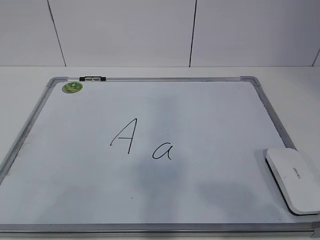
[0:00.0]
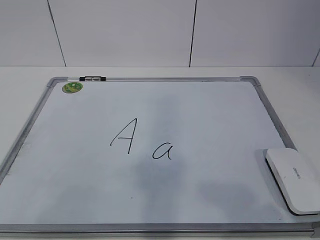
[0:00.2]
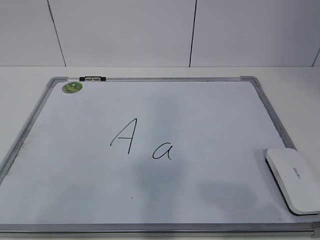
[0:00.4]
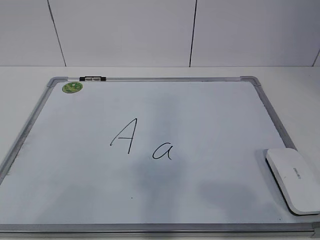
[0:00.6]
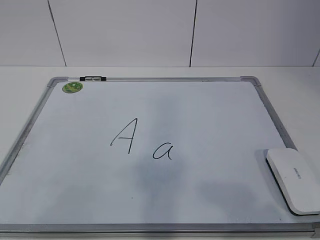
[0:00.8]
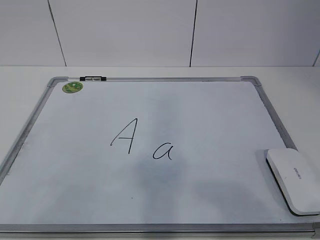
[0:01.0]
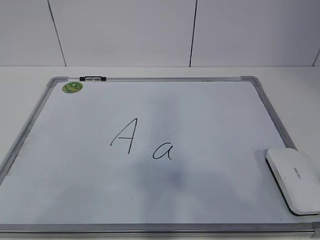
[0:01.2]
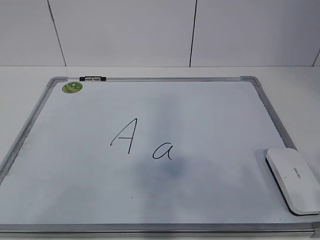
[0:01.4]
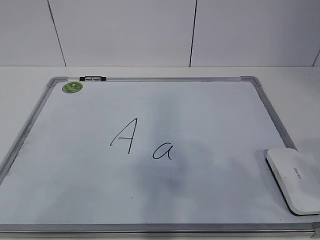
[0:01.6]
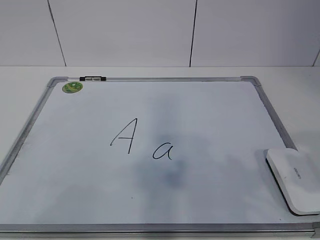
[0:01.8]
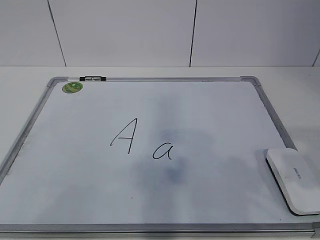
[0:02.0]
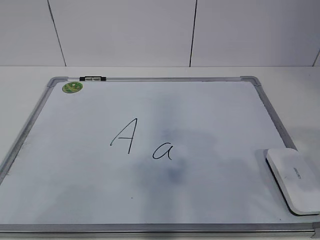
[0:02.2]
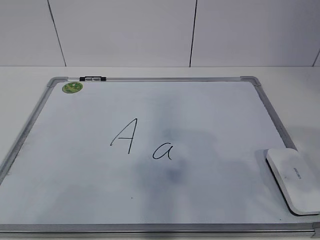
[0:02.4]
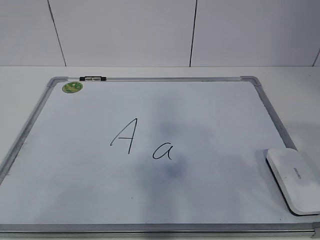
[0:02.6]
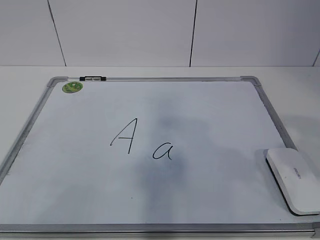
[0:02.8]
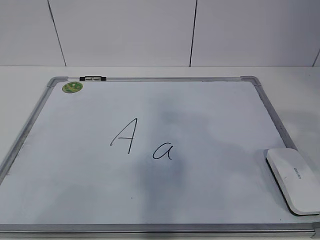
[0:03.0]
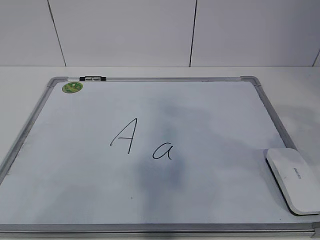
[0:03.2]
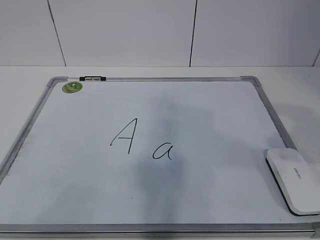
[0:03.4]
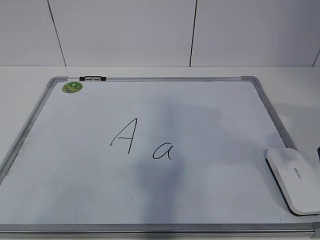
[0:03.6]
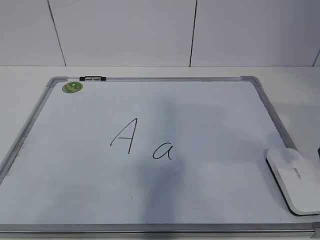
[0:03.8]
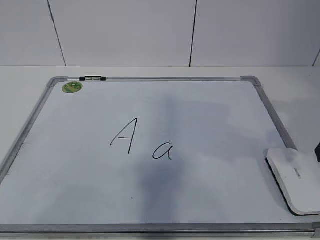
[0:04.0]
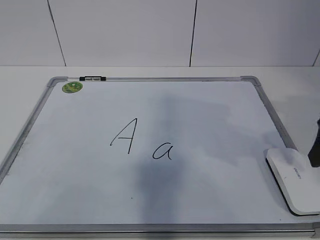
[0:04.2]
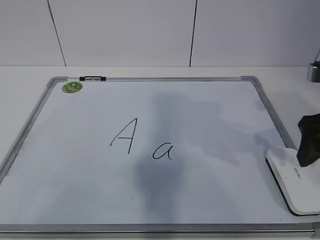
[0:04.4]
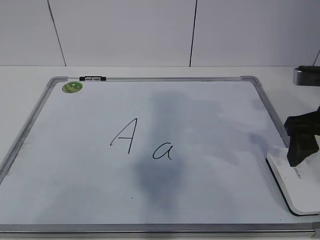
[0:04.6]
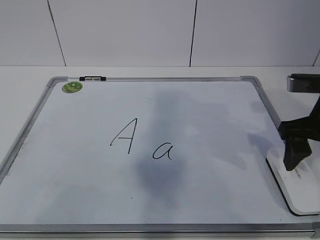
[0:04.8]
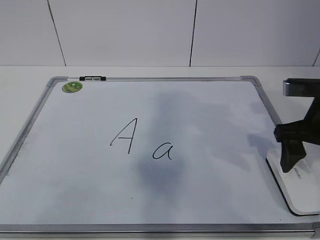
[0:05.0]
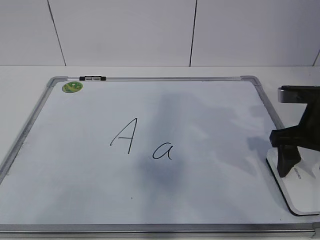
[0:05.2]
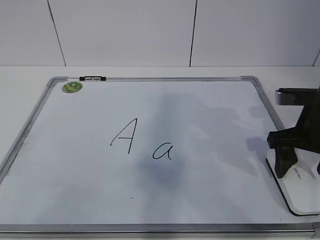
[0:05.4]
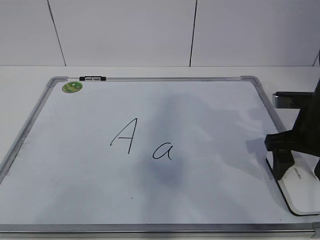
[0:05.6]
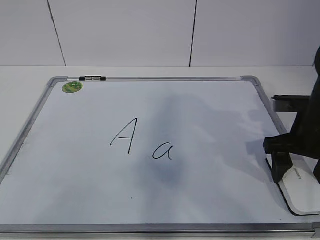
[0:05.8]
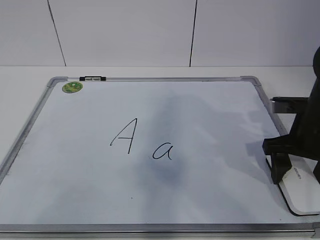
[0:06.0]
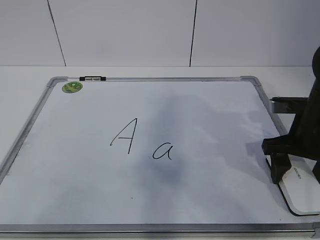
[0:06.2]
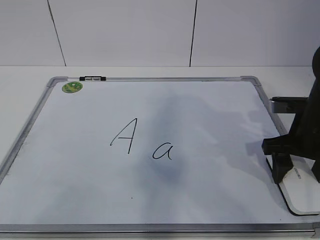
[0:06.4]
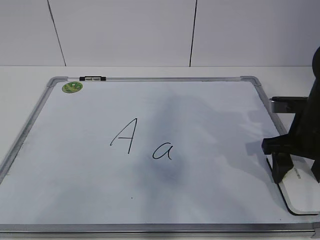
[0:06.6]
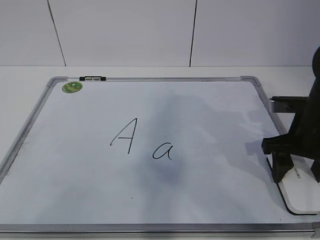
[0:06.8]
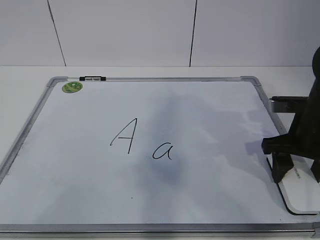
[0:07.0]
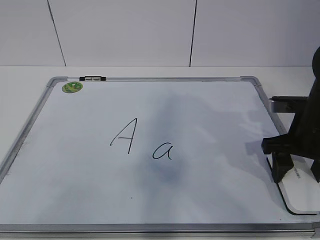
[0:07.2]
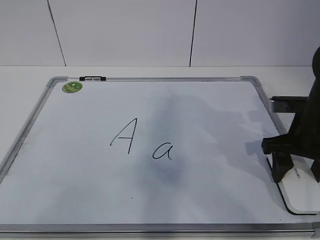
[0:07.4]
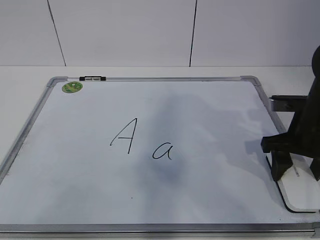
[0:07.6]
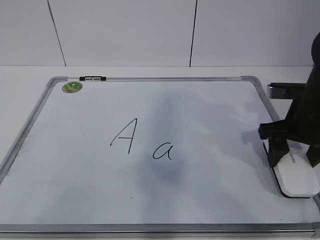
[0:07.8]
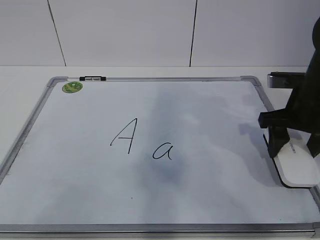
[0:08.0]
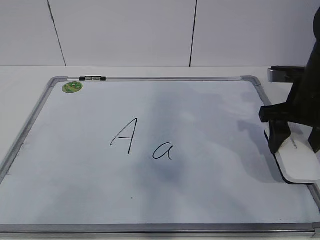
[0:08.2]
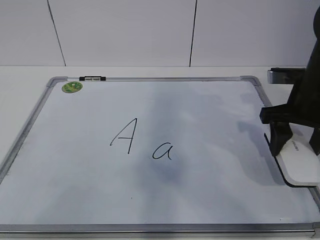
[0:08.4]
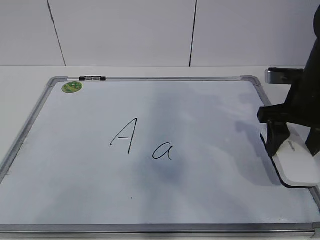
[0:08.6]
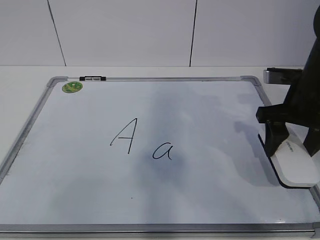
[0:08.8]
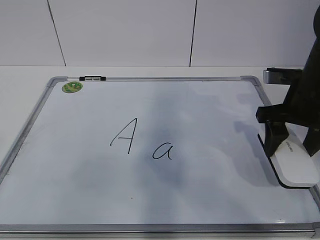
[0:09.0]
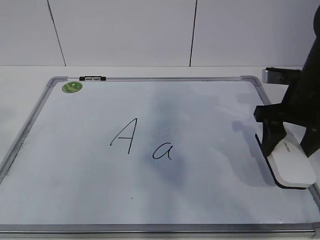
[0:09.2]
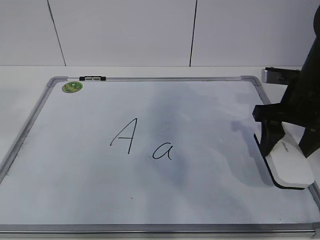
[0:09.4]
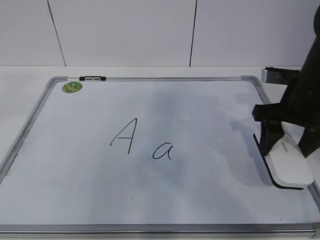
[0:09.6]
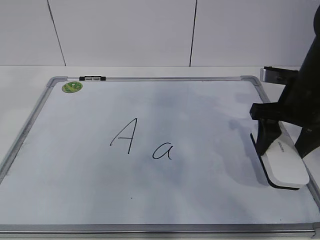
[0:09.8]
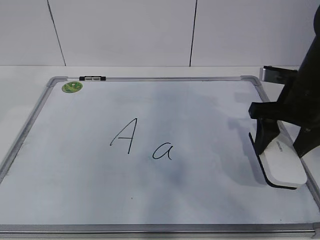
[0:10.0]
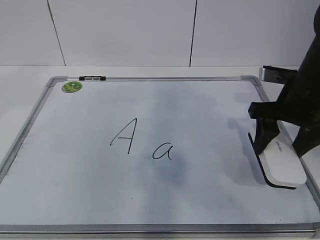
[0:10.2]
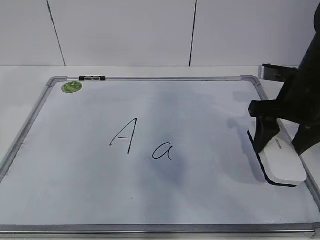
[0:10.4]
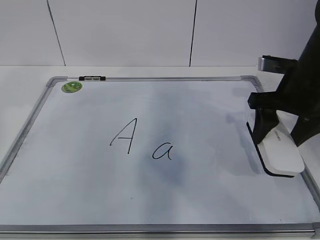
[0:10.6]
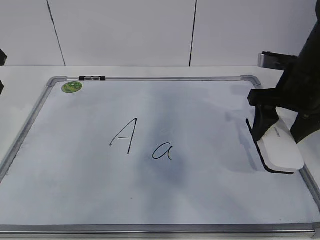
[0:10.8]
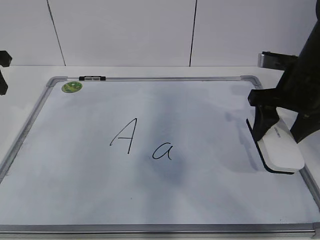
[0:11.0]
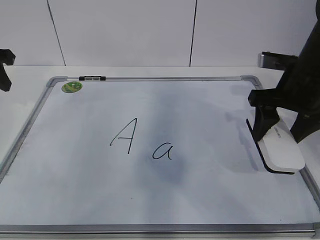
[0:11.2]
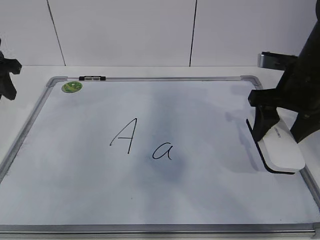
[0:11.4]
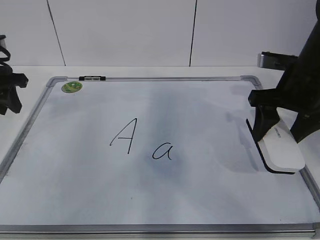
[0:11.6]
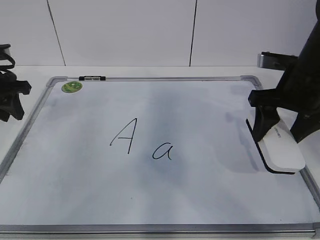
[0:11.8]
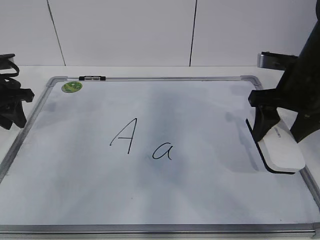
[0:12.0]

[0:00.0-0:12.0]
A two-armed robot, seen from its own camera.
Task of the whole recording: pick up the eraser on the blackboard and erase the letter "a".
Step, 0:00.0 to 0:05.2: Grab the eraser with your right hand.
Step, 0:05.4 to 0:10.8: Hold the drawing board steady with your left hand.
0:03.0 to 0:04.4: The right gripper moves forward, approximately 10 cm, and opens.
0:04.4 to 0:06.0: The right gripper heads downward and forward, covering roughly 10 cm.
0:06.0 to 0:07.6: The right gripper closes its fingers.
0:07.6 to 0:09.0: The right gripper ends up about 5 cm from where it was.
0:10.4 to 0:12.0: The left gripper is displaced downward and forward by roughly 15 cm.

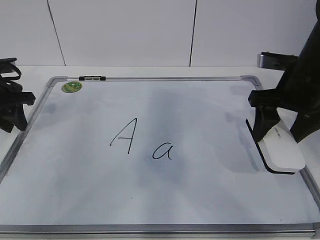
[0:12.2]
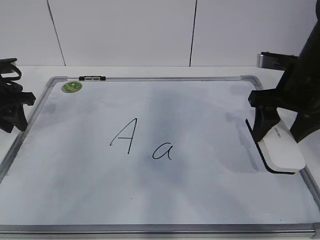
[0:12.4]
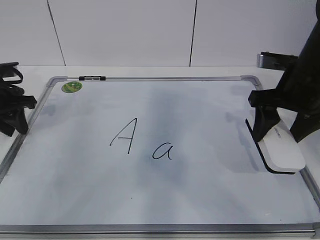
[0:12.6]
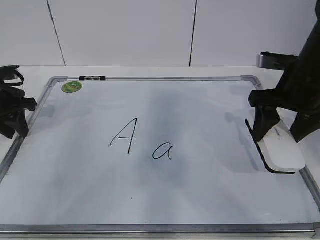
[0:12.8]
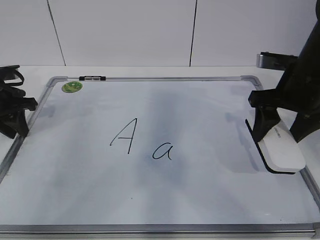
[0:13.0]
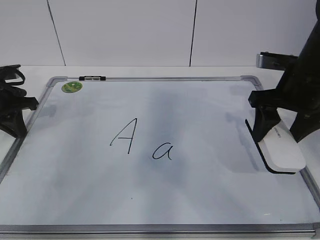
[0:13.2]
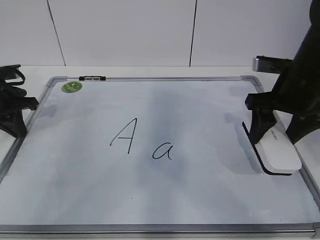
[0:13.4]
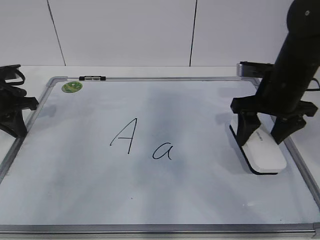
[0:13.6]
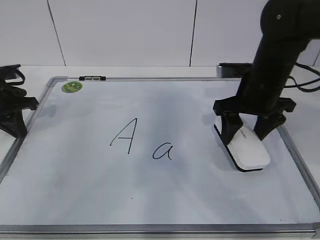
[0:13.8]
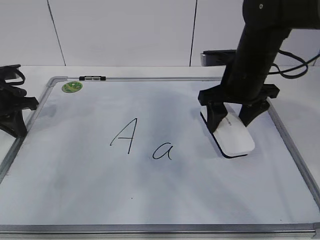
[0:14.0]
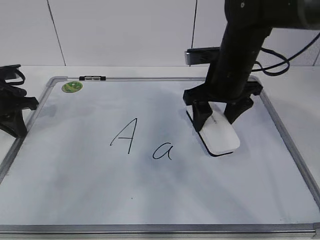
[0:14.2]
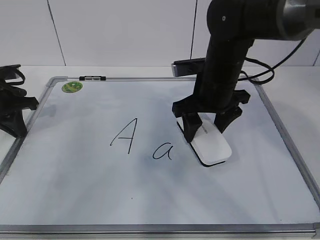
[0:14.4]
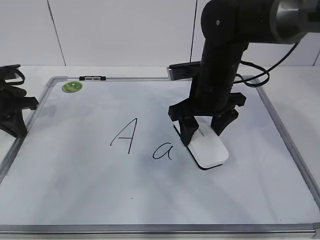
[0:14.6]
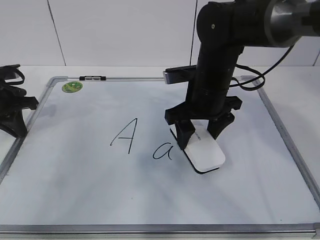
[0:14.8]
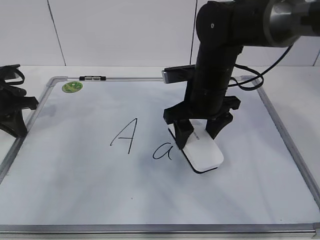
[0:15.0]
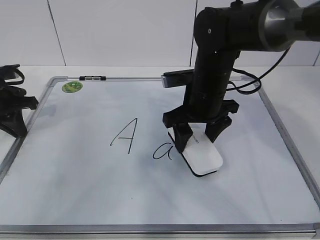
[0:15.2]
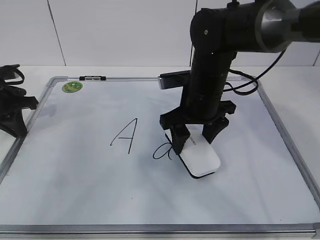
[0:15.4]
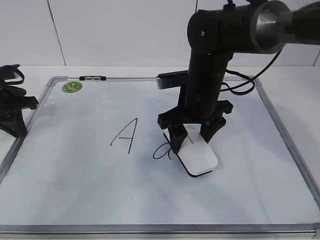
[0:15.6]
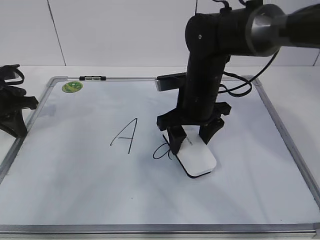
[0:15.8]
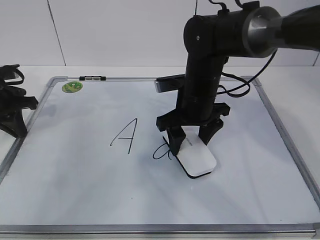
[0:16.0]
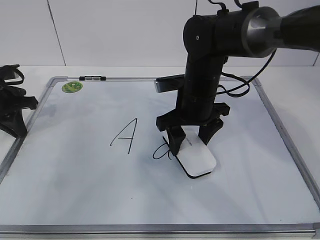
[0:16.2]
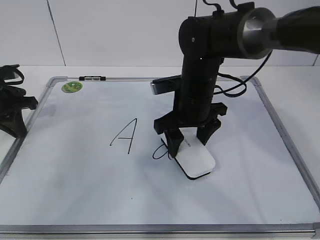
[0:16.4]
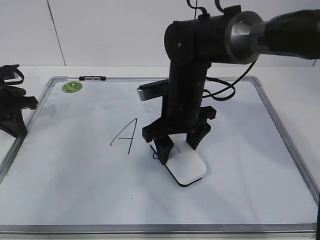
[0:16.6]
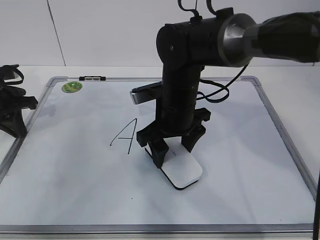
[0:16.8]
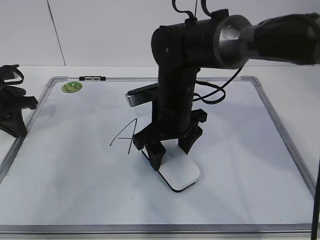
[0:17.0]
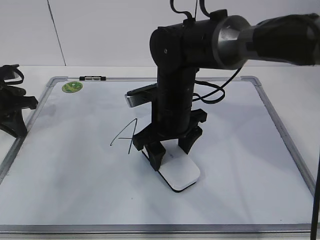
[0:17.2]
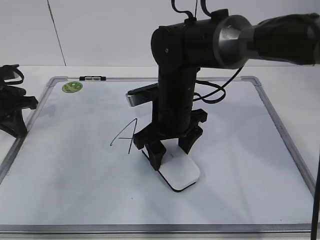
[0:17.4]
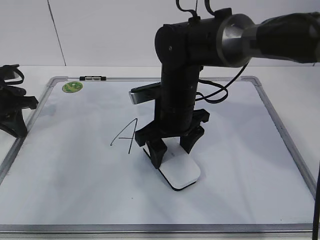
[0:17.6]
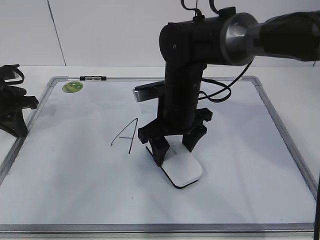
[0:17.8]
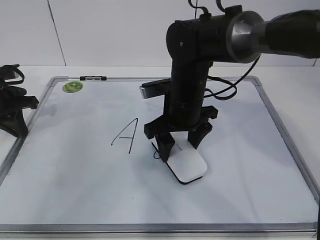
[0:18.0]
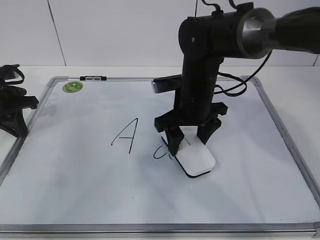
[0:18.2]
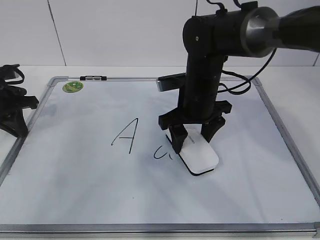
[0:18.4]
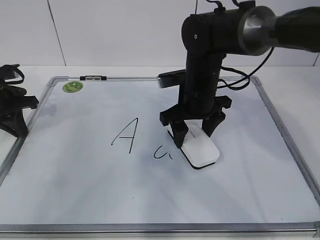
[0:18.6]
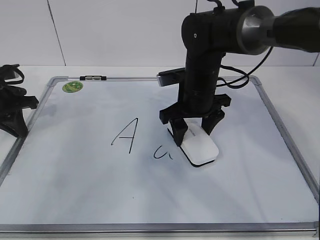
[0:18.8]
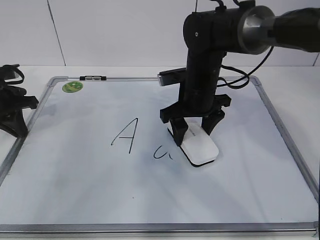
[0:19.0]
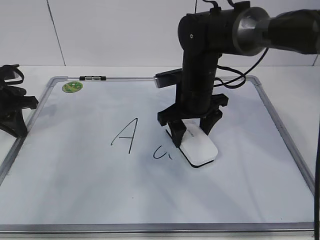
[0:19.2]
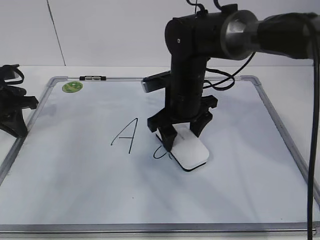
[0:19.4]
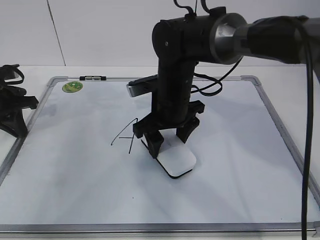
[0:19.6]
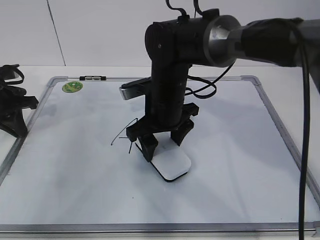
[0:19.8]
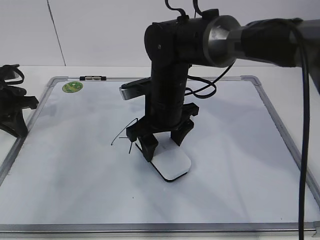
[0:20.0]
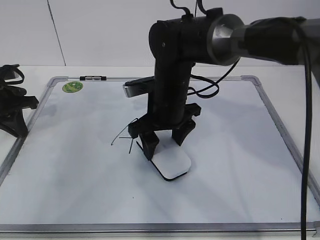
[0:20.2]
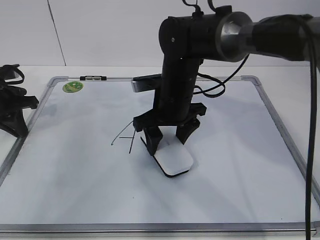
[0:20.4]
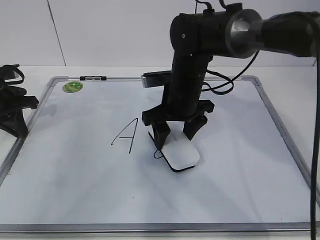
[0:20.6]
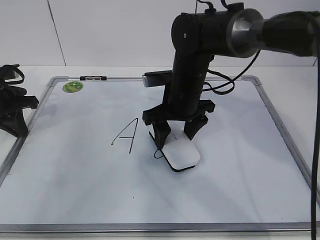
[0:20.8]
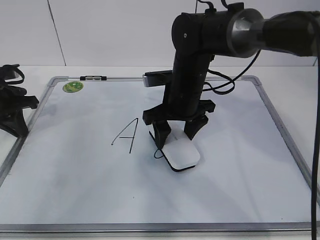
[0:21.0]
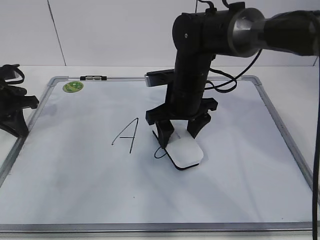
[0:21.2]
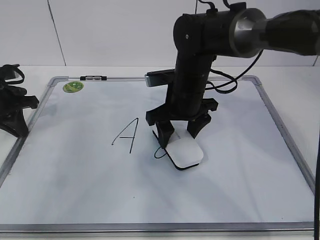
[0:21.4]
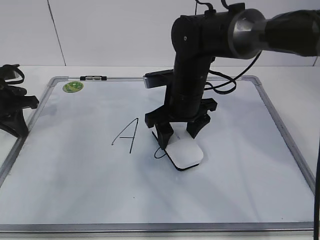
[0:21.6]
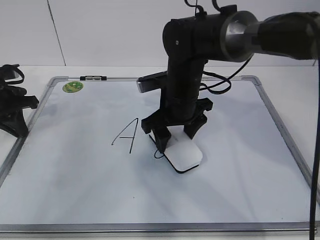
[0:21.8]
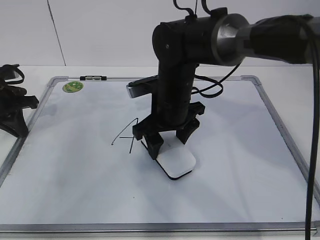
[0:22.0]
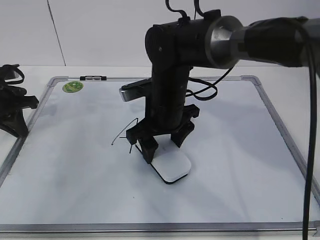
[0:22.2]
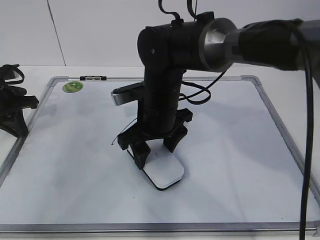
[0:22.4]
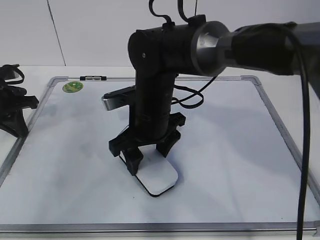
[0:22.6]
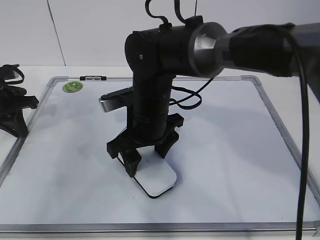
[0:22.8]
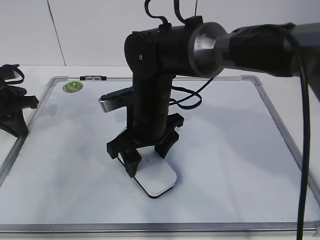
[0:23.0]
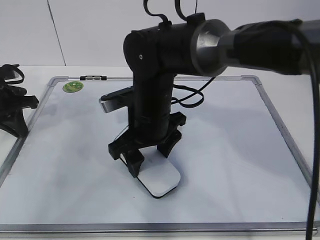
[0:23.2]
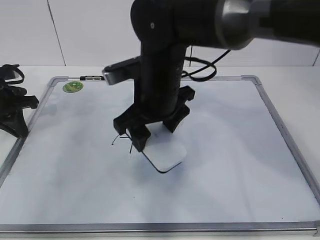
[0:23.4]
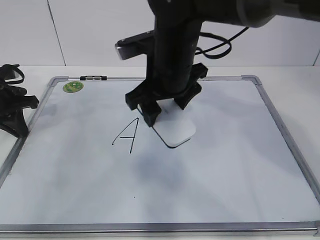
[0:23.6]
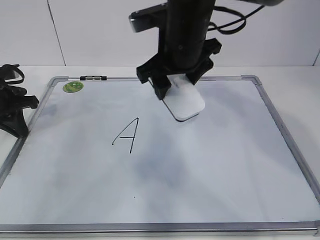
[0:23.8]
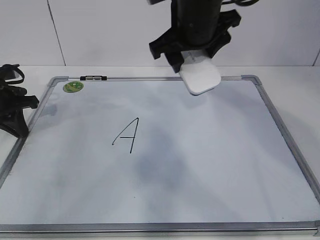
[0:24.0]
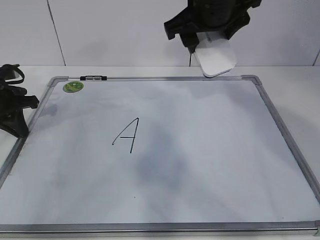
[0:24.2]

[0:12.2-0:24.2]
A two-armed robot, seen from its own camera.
Task of the whole recording: pick up the eraser on the blackboard and erase the letter "a".
Step, 0:12.2 to 0:19.2: Erase the letter a with your right hand.
Step, 0:19.4 to 0:23.8: Put down the eraser with your right hand.
0:12.2 to 0:13.8: The left gripper closes up, while the right gripper changes place by about 5 cm.
0:13.8 to 0:15.2: The right gripper is displaced to the left by roughly 10 cm.
0:15.2 to 0:16.6: The grippers stay close to where they were, moving slightly.
0:16.6 to 0:18.2: The grippers make only small movements.
0:18.2 to 0:19.8: The right gripper shifts about 5 cm to the left.
0:19.8 to 0:21.2: The right gripper ends up about 5 cm from where it was.
0:21.2 to 0:22.6: The right gripper travels to the left and backward by approximately 10 cm.
0:22.6 to 0:24.2: The right gripper heads upward and to the right, covering roughly 20 cm.
